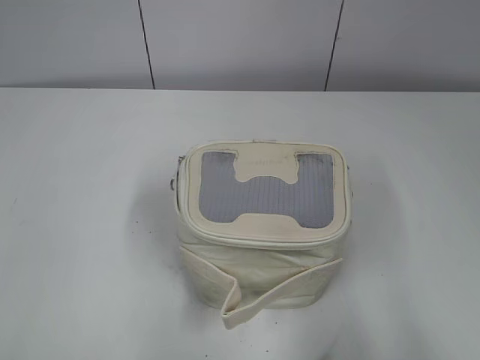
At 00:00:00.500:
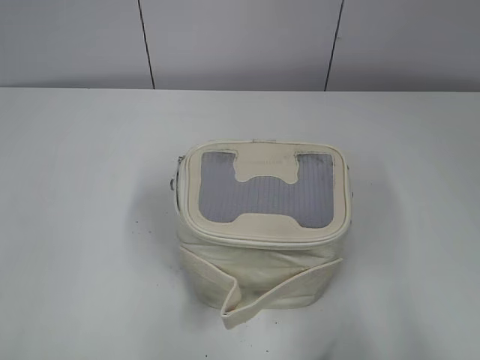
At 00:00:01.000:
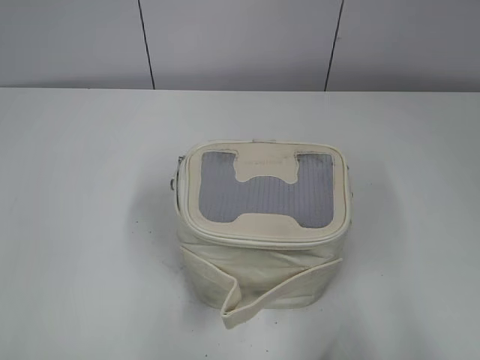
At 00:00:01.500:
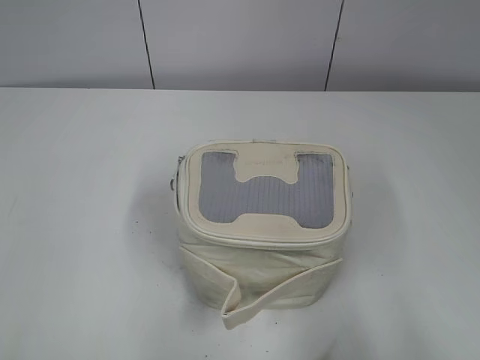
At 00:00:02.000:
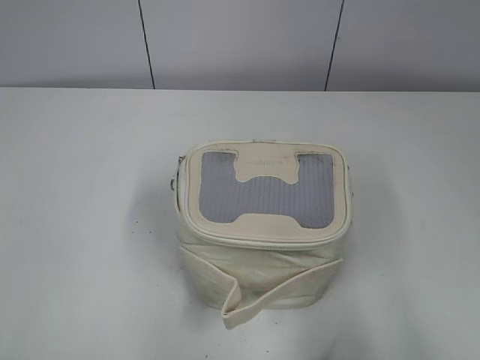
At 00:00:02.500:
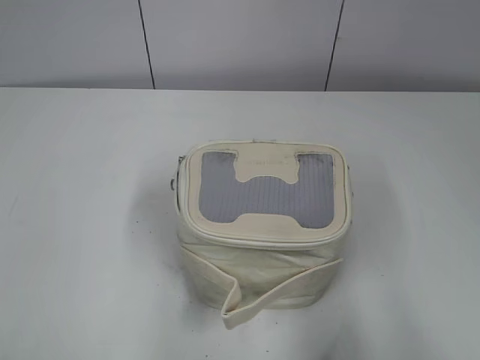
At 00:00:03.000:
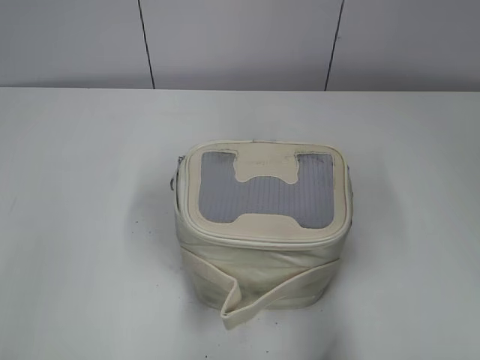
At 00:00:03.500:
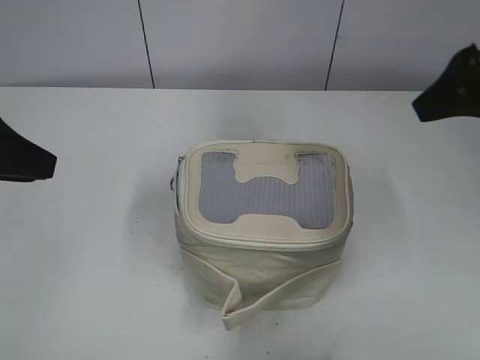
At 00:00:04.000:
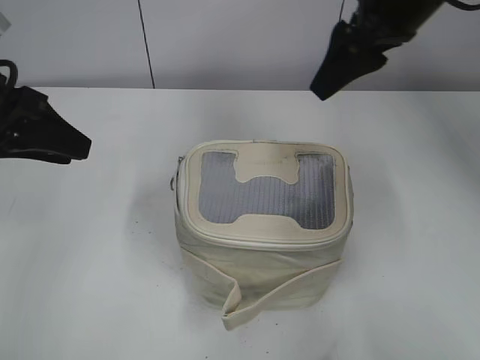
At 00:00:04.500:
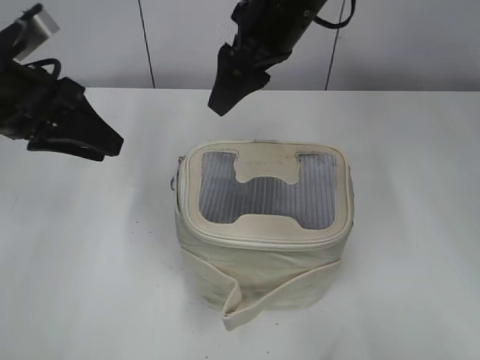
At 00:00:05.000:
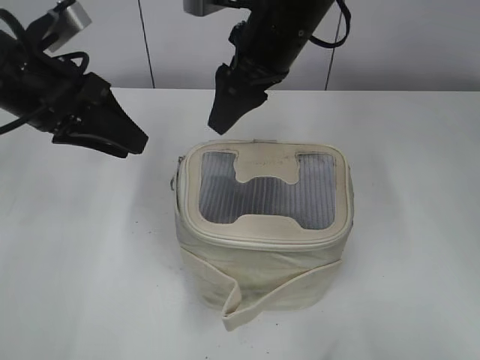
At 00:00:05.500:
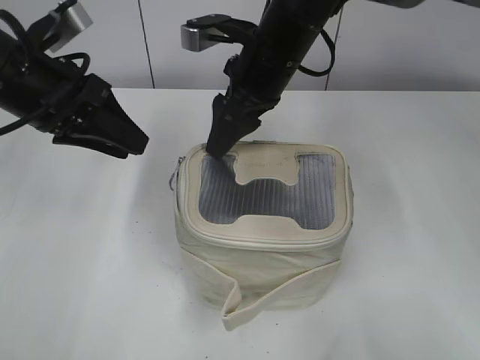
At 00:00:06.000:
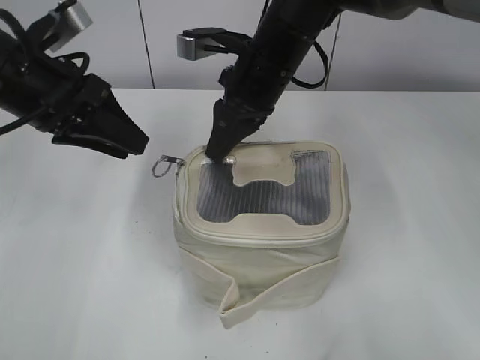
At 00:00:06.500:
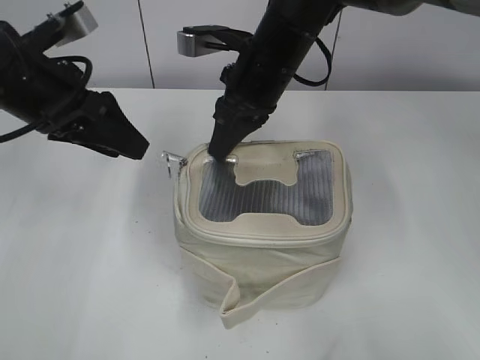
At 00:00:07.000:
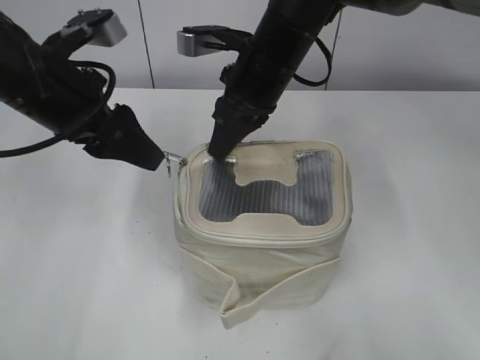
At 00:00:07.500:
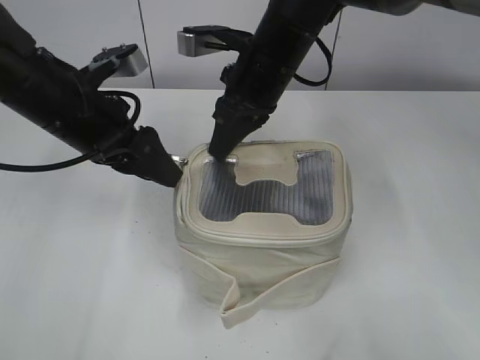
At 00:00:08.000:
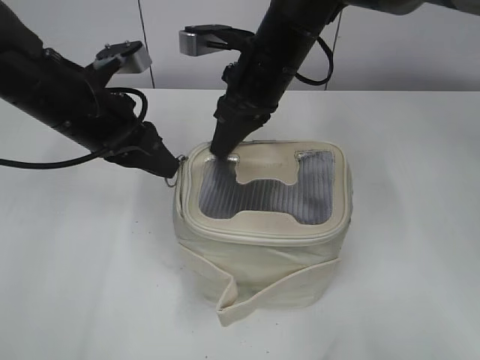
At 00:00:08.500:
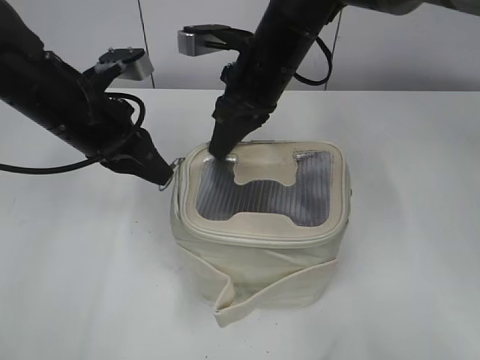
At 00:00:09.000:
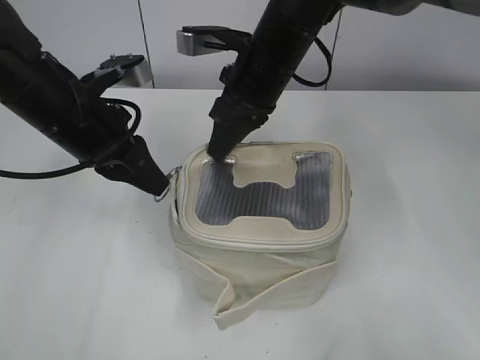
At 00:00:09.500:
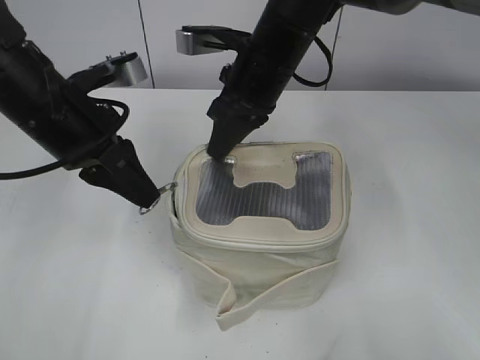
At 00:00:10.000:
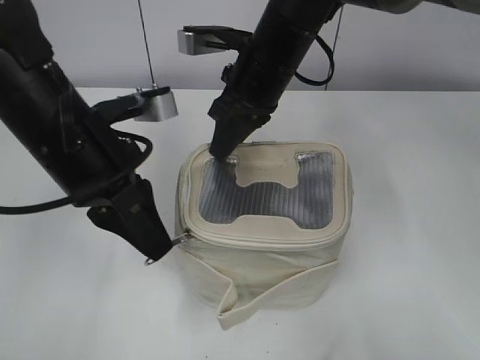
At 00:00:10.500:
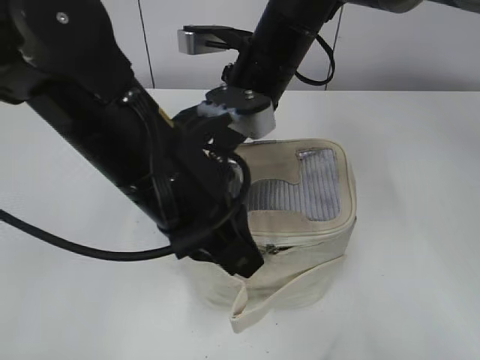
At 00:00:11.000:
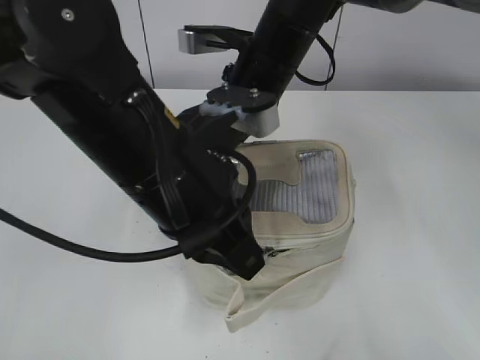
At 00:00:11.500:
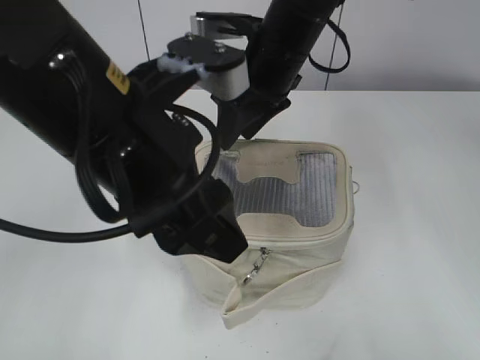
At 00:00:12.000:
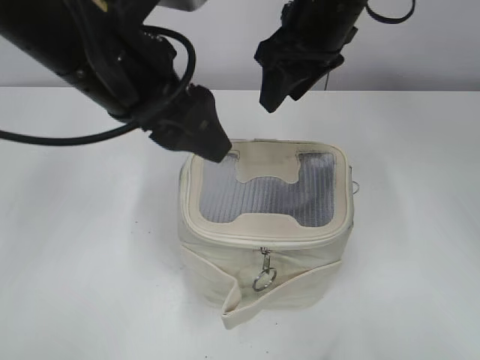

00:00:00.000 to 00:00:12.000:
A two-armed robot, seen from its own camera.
Step, 00:00:00.000 to 00:00:11.000: Zip up the bag with your left hand.
00:00:02.000 to 00:00:04.000: The grippers both shift forward by about 30 cm.
00:00:04.000 to 00:00:06.000: The right gripper shifts some 15 cm to the left and downward, and closes its fingers. Meanwhile the left gripper shifts by approximately 5 cm.
00:00:06.000 to 00:00:08.000: The left gripper ends up about 5 cm from where it was.
00:00:08.000 to 00:00:10.000: The left gripper shifts about 5 cm backward.
00:00:10.000 to 00:00:12.000: Both grippers move upward, roughly 5 cm. The left gripper opens its fingers; the right gripper opens its fingers.

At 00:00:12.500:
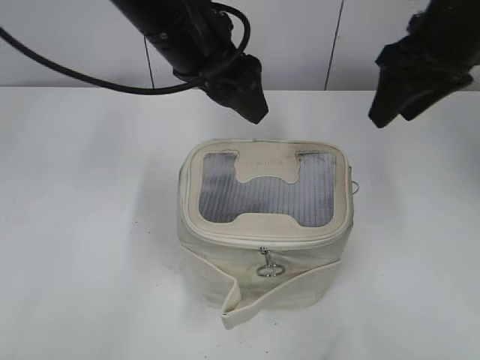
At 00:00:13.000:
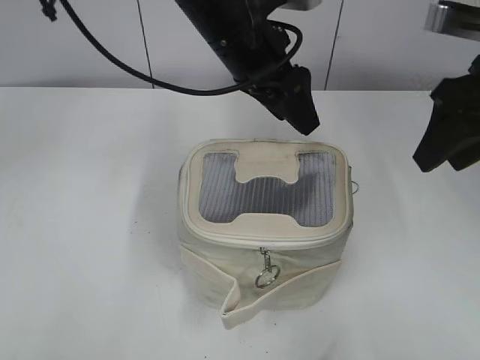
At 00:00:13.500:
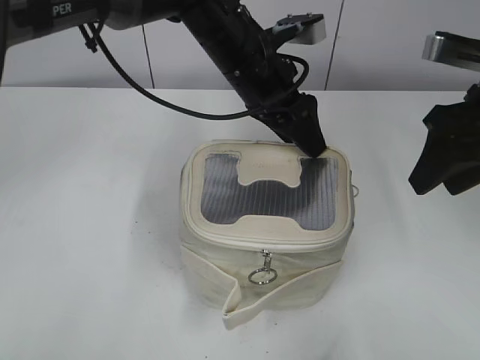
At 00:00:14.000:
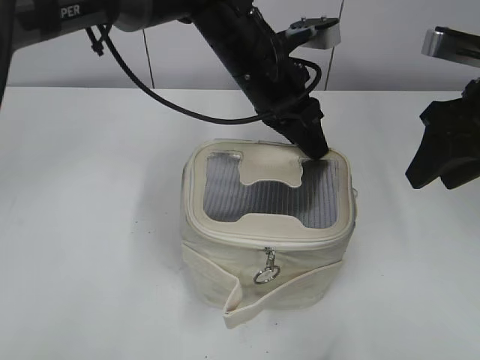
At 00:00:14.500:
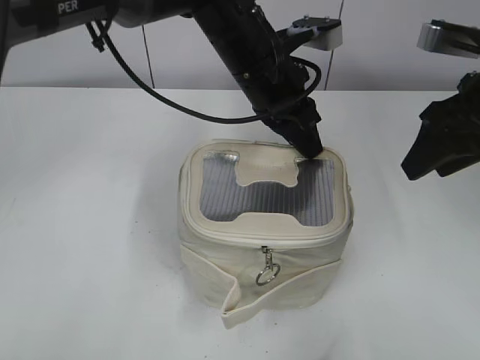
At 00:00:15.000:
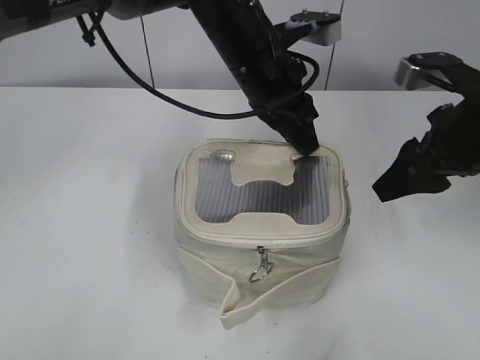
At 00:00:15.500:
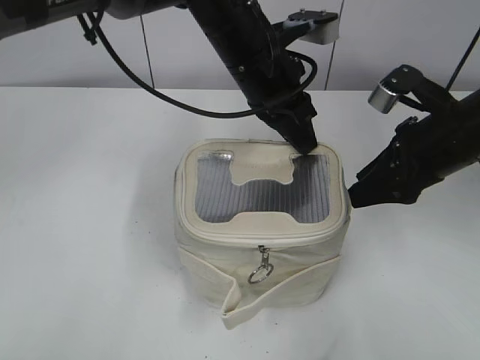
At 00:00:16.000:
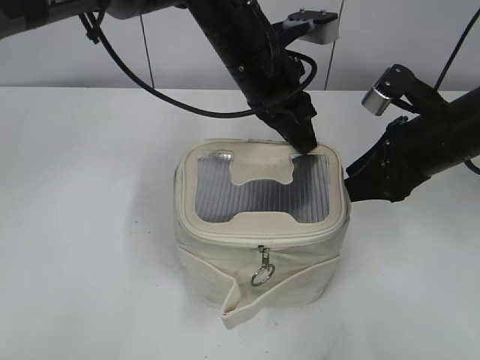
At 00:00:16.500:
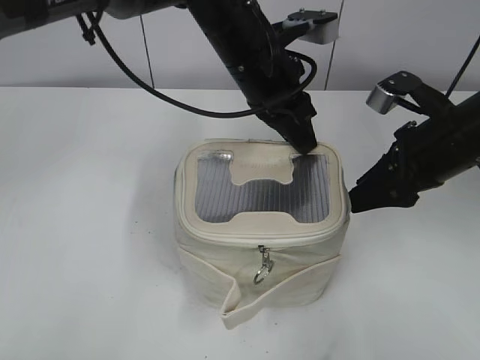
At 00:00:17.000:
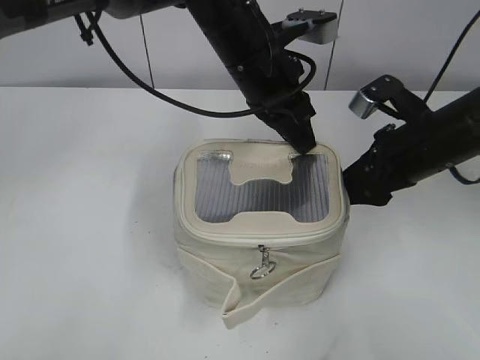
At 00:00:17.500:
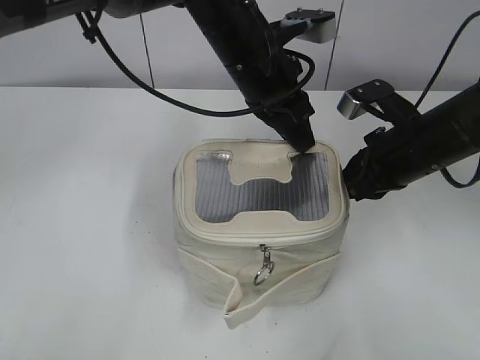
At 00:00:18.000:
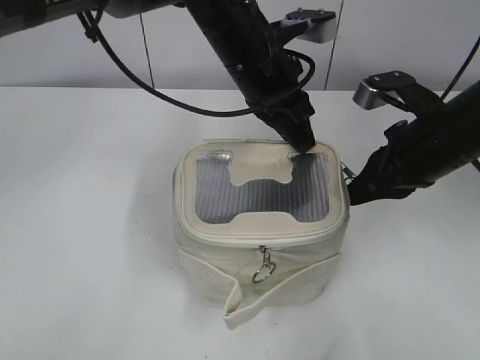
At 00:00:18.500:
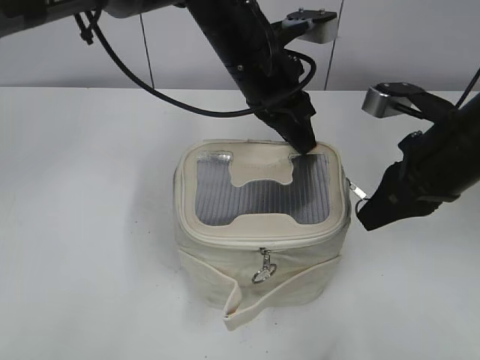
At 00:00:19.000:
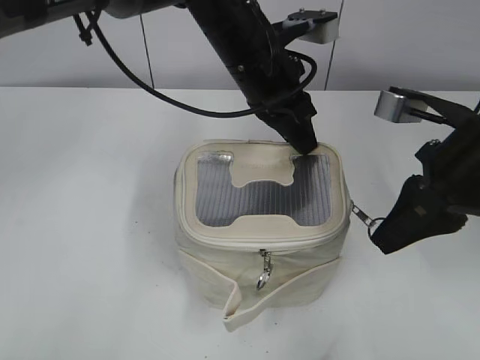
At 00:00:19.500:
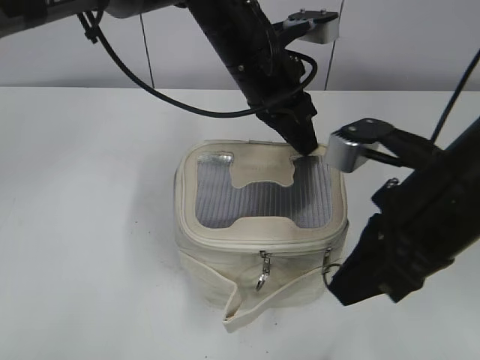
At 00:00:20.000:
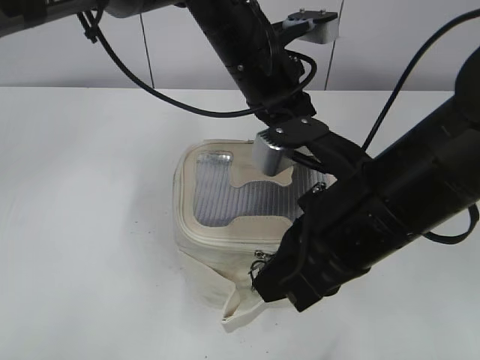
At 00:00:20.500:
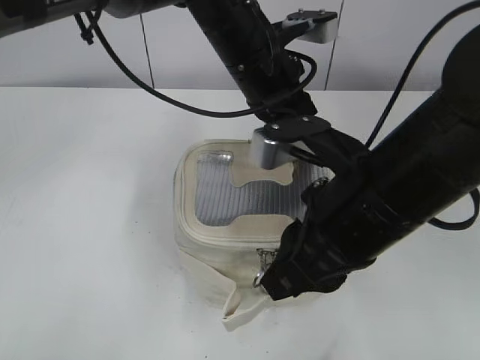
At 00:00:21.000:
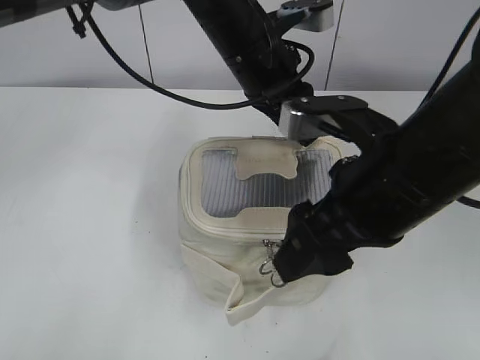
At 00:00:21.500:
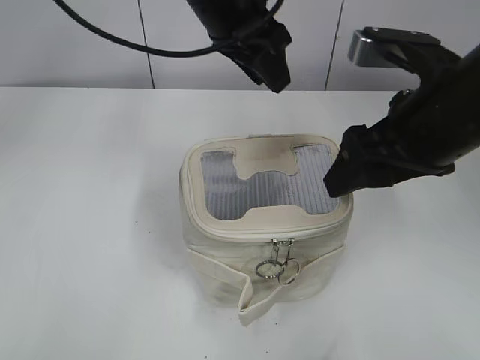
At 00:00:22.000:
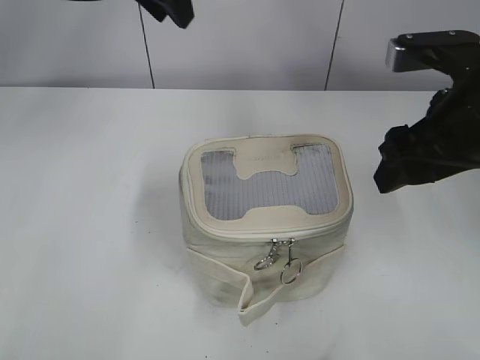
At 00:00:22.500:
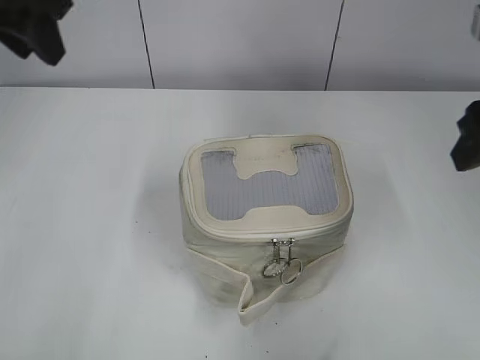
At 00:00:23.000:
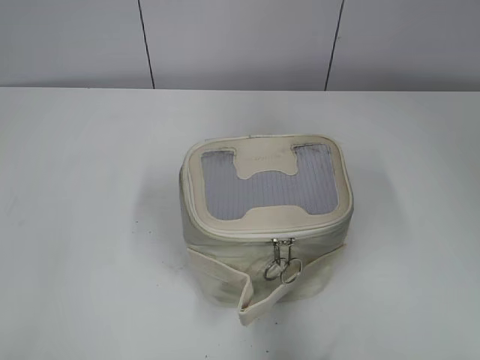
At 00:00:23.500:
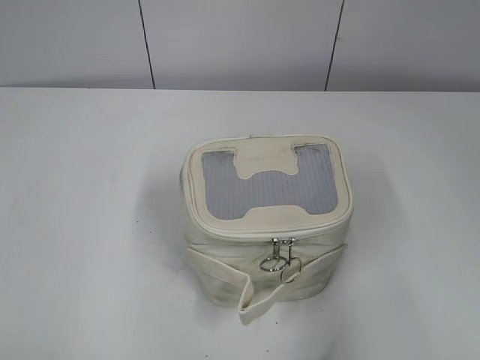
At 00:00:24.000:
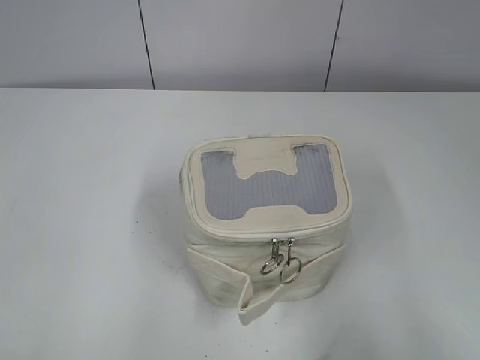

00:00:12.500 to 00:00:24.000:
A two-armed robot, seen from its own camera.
Step, 00:00:12.500 to 00:00:20.500: Zip up the bag with your right hand.
00:00:12.500 to 00:00:14.500: The left gripper goes some 10 cm to the right and downward, and closes. The right gripper moves backward and to the right, about 10 cm.
00:00:14.500 to 00:00:16.500: The right gripper heads downward, covering some 5 cm.
00:00:16.500 to 00:00:18.500: The right gripper closes up.
00:00:18.500 to 00:00:20.000: The right gripper goes roughly 15 cm to the left and backward.
00:00:20.000 to 00:00:22.000: The right gripper shifts about 10 cm to the right and forward, and opens. Meanwhile the left gripper is displaced upward and to the left by about 15 cm, and opens up.
00:00:22.000 to 00:00:24.000: The right gripper goes roughly 30 cm backward and to the right. Meanwhile the left gripper travels backward and to the left by roughly 50 cm.

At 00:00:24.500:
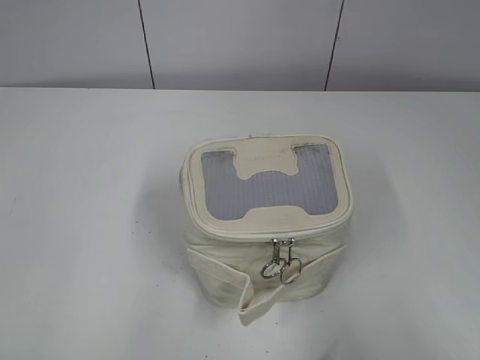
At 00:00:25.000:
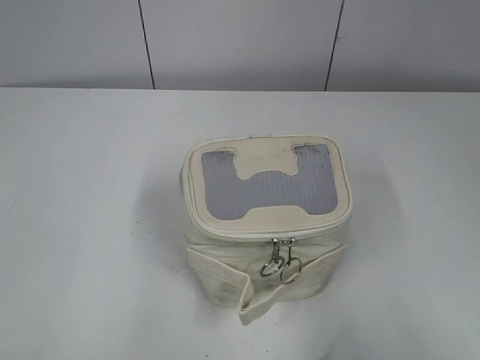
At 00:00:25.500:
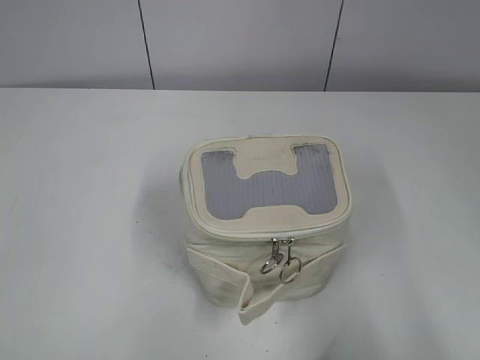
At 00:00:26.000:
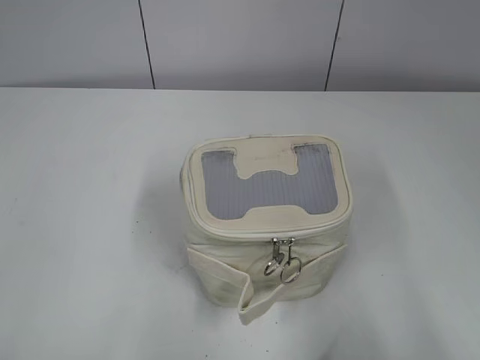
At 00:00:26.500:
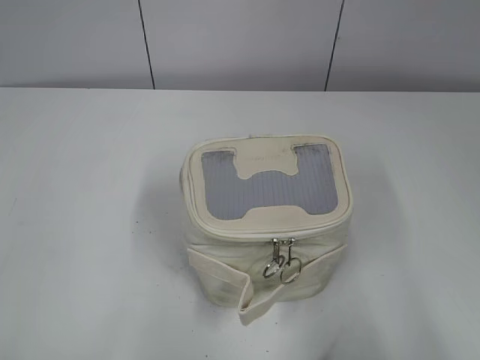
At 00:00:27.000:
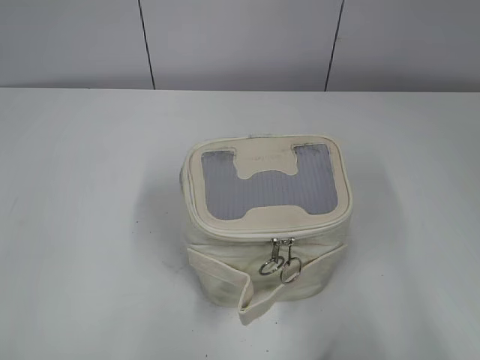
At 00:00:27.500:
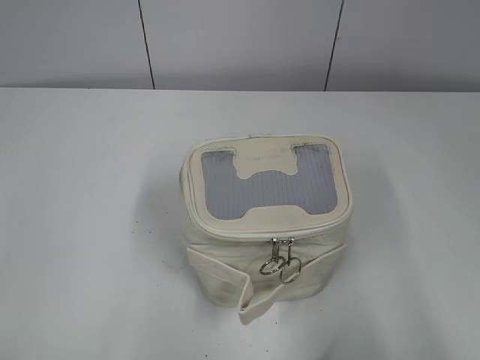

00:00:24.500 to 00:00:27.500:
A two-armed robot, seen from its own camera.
00:00:26.000 to 00:00:27.500: Both grippers stay about where they are.
